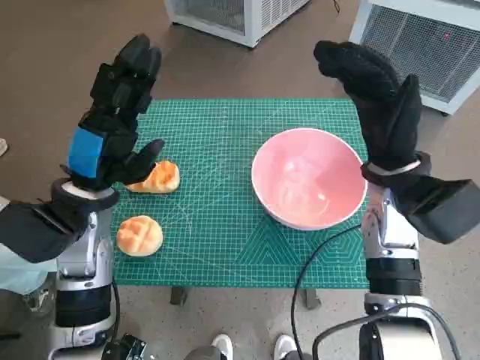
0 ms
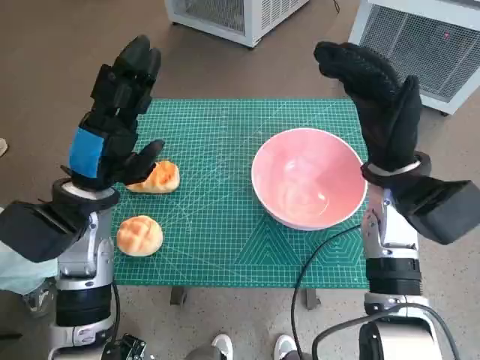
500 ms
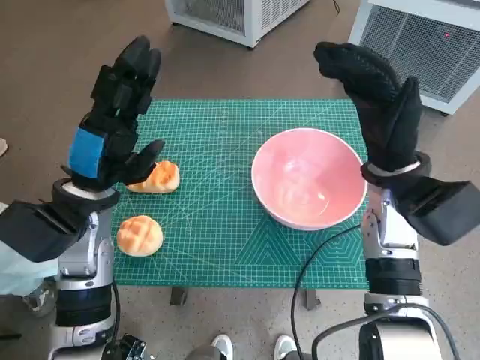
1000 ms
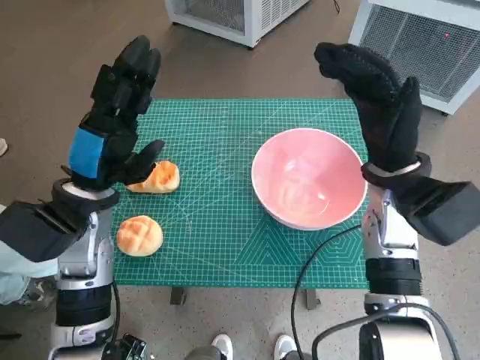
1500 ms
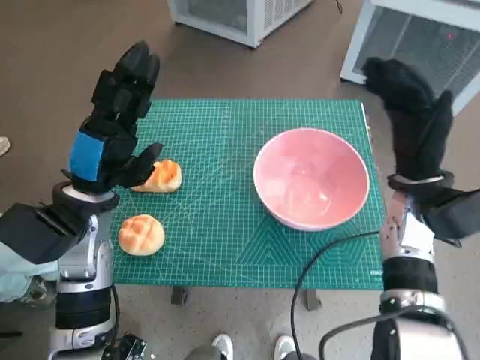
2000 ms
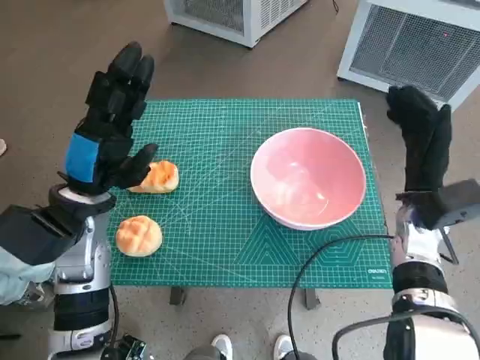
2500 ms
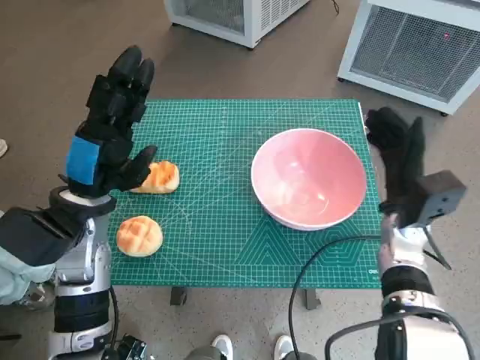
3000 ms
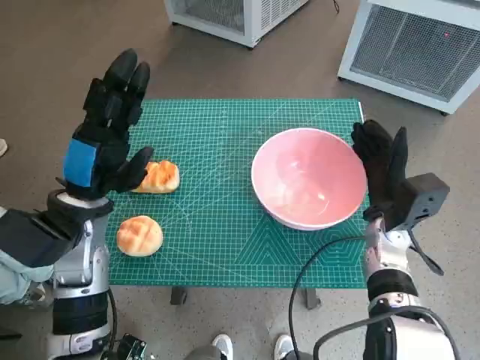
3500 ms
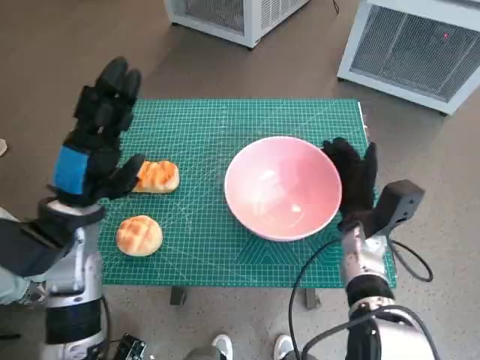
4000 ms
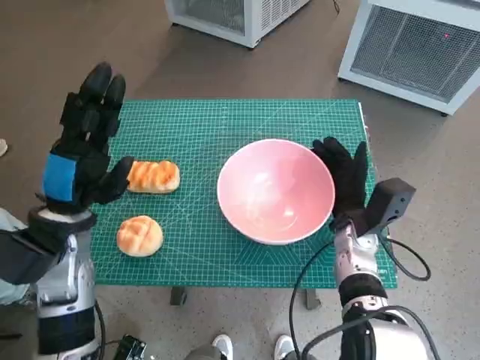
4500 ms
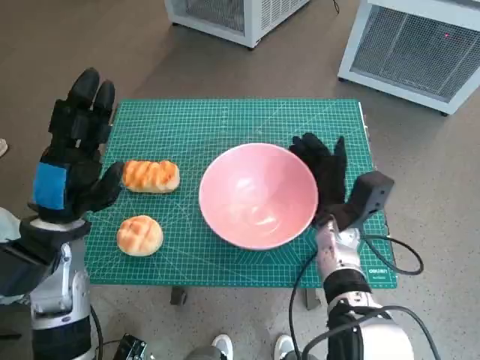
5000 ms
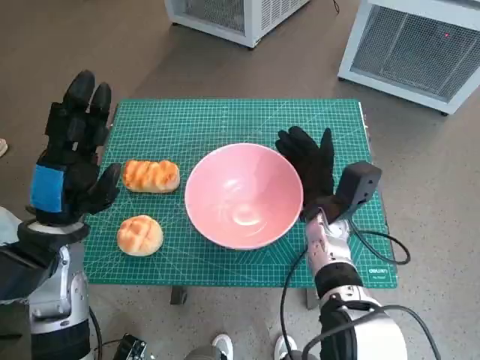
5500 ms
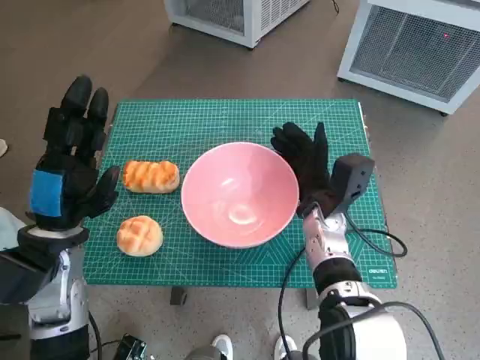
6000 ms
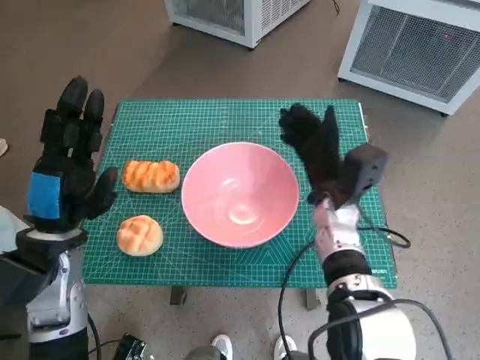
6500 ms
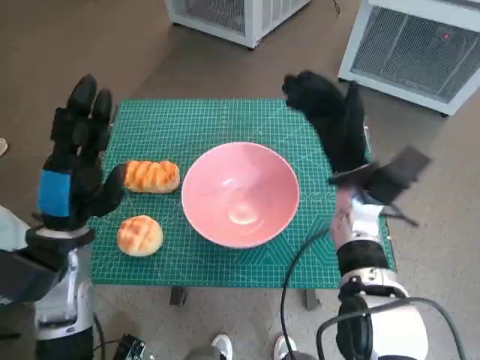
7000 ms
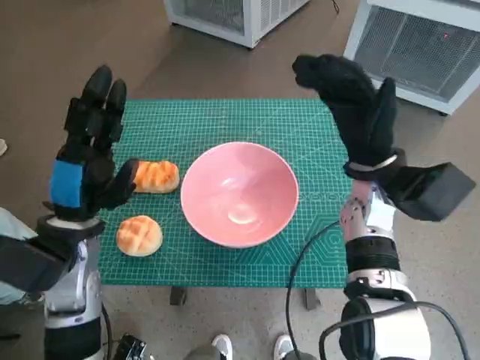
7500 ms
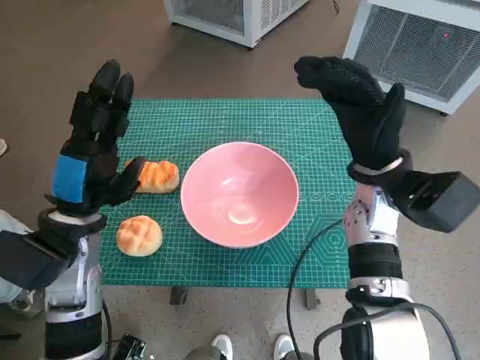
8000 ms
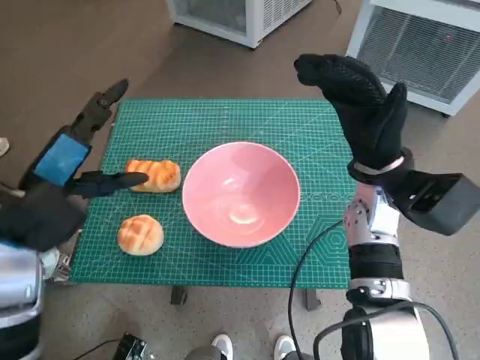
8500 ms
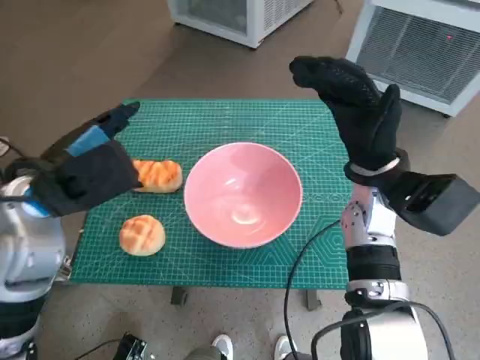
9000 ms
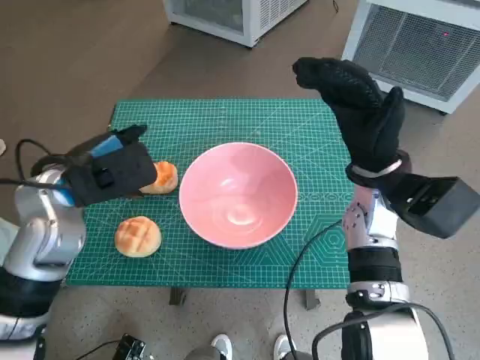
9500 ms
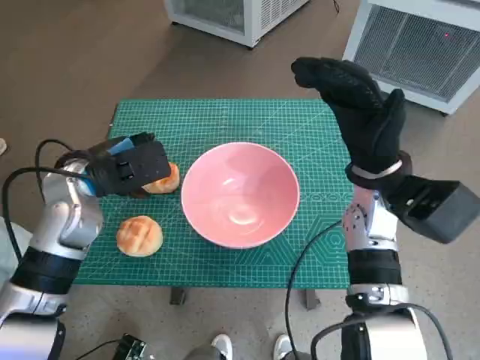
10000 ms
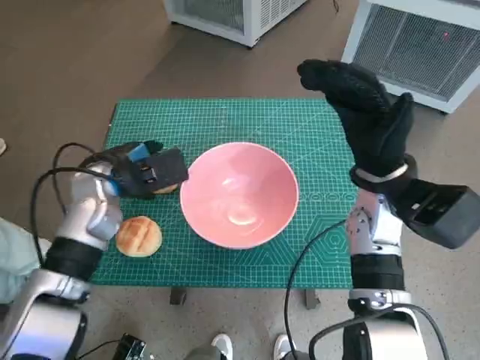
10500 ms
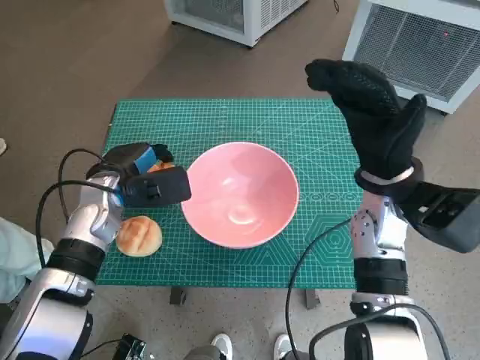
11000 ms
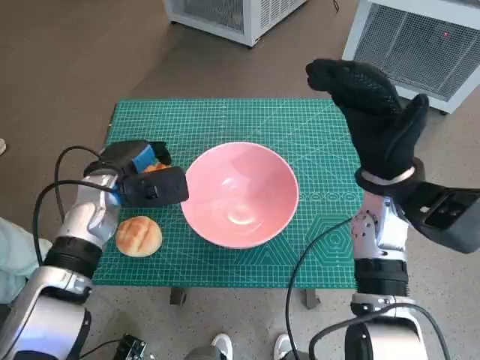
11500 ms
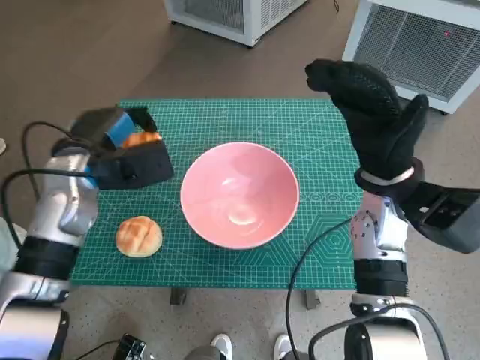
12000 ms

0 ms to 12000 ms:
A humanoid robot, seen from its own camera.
Task of the whole recording: Push the bowl into the center of the table and put the bread into the bowl.
Step, 0 ms to 6500 ms: Move the pink bowl to the center of table with right hand.
Step, 7000 ms to 11000 ms: Grasp the long bread with left hand.
2000 ms to 4000 ms: The right hand moves downward, about 10 cm.
4000 ms to 6000 ms: The right hand shifts approximately 5 cm to the left.
6000 ms to 8000 ms: The right hand goes some 10 cm upward and to the right.
8000 ms to 10000 ms: The left hand shifts approximately 5 cm forward.

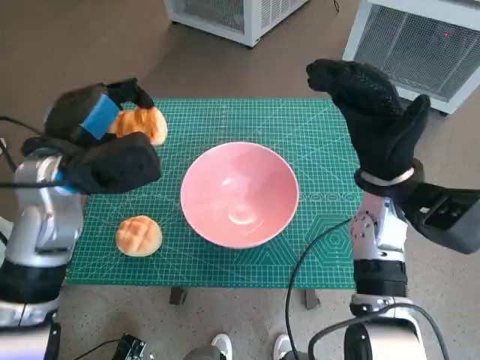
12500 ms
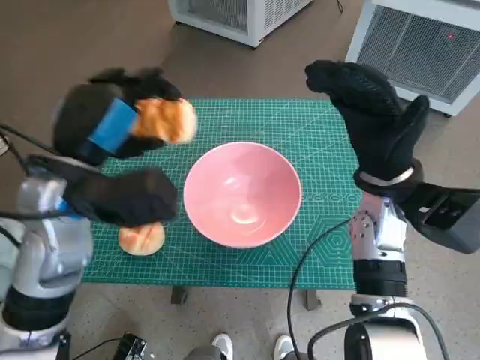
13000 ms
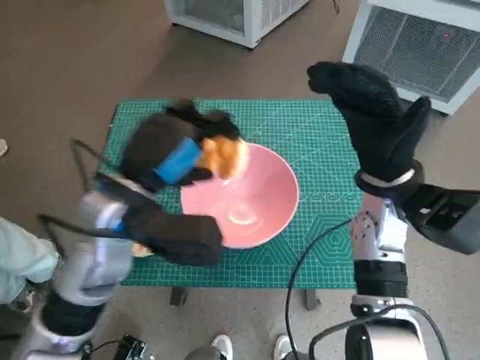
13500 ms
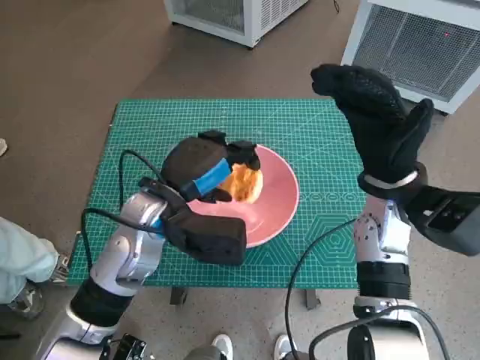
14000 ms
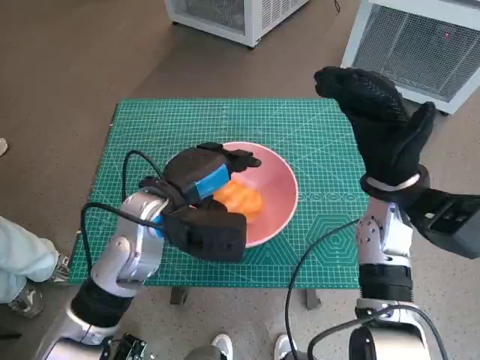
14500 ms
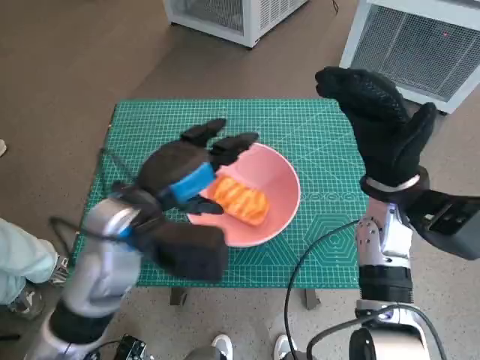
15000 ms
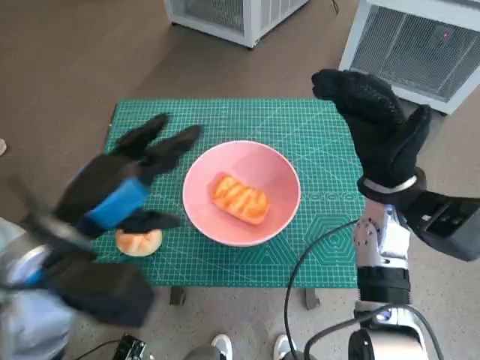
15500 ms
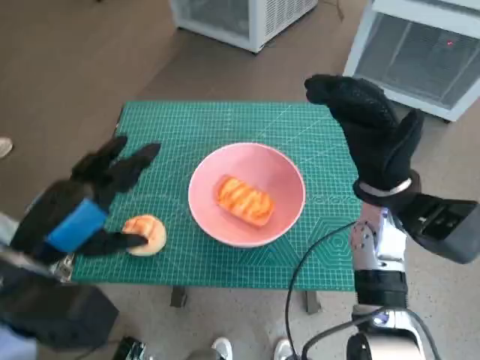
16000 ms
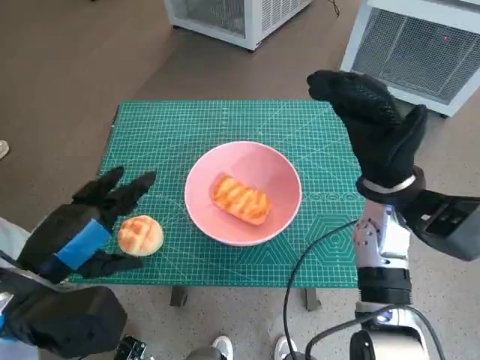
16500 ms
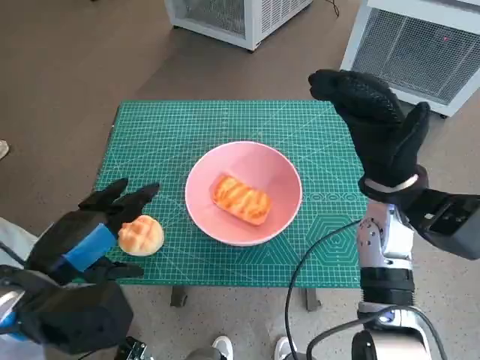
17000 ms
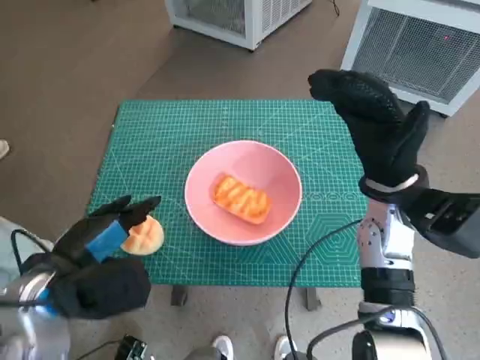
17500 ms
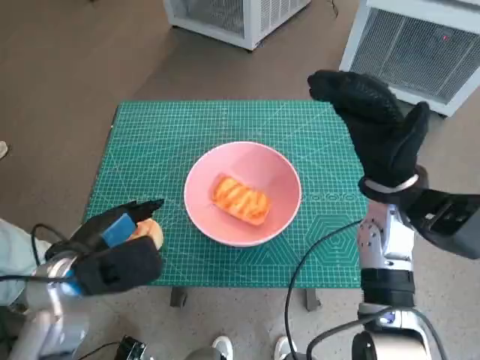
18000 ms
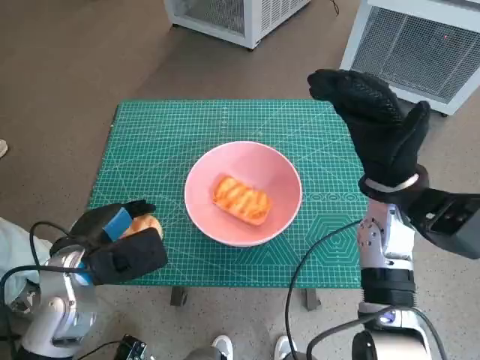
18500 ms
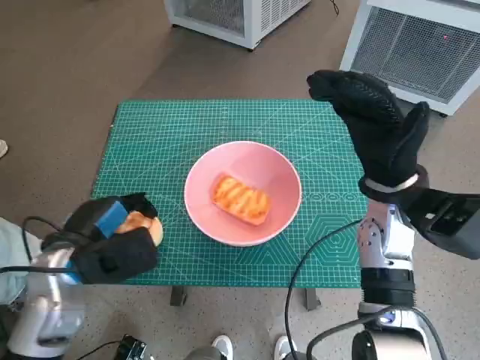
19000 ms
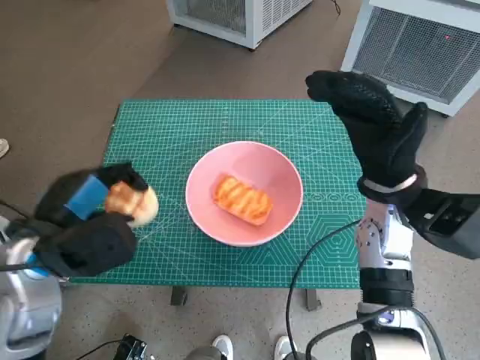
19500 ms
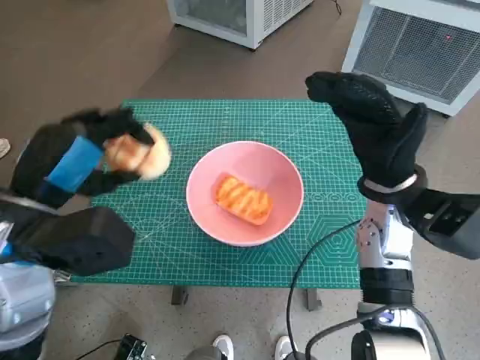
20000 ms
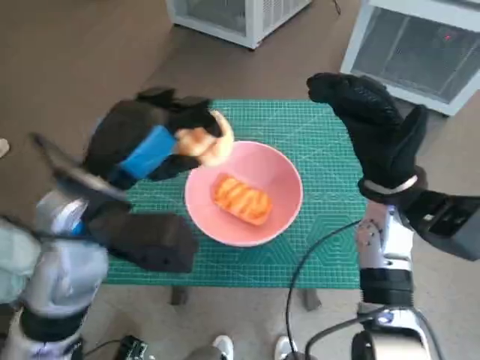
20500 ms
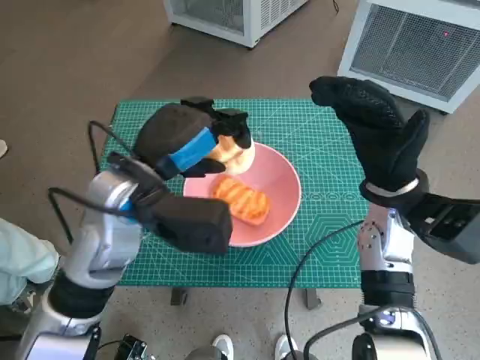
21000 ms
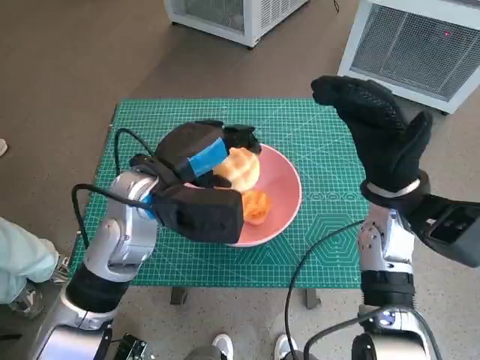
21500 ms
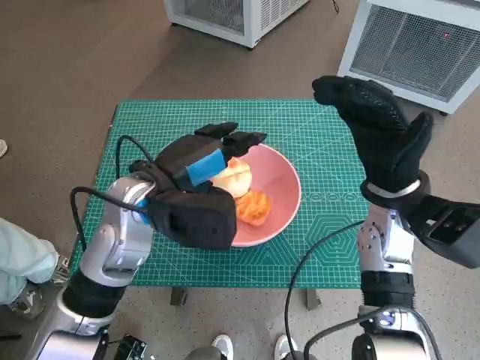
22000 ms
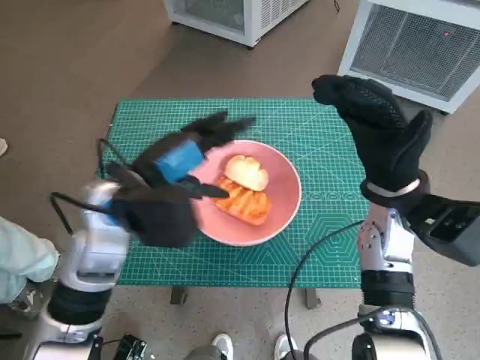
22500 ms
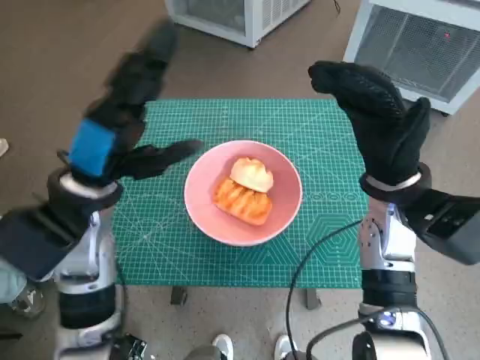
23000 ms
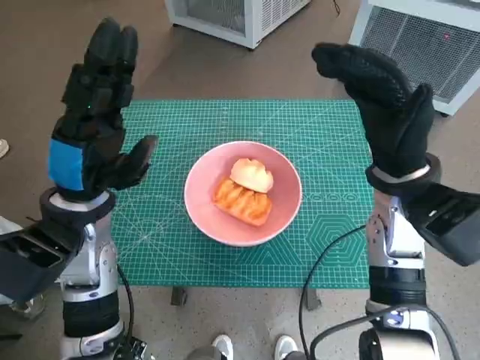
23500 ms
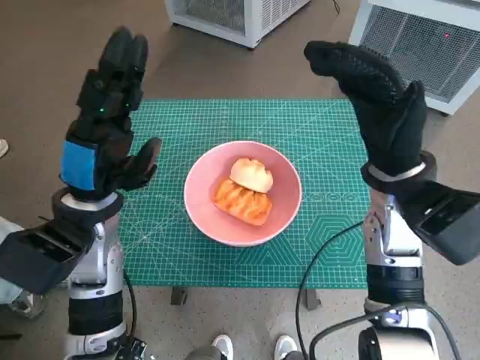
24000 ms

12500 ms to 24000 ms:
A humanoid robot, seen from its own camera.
Task of the whole recording: Push the bowl into the center of the table and put the bread into the bowl.
Step, 12500 ms to 14500 ms: Place the long bread in pink bowl with left hand.
Step, 15000 ms to 18500 ms: Grasp the round bread with left hand.
Step, 19000 ms to 22000 ms: Place the round bread in pink bowl with left hand.
12500 ms to 14500 ms: The left hand is displaced to the right and downward by roughly 10 cm.
14500 ms to 16500 ms: The left hand moves backward and to the left, roughly 15 cm.
16500 ms to 18500 ms: The left hand travels downward and forward by approximately 10 cm.
18500 ms to 20000 ms: The left hand shifts approximately 10 cm upward.
20000 ms to 22000 ms: The left hand goes about 10 cm to the right and forward.
22000 ms to 24000 ms: The left hand shifts approximately 5 cm to the left.

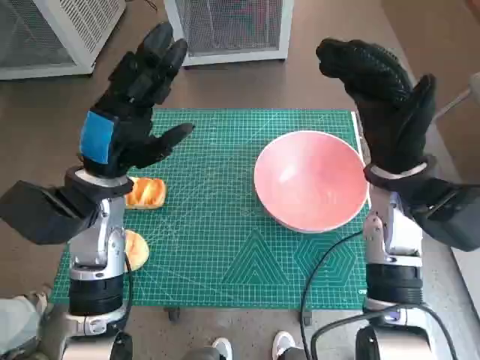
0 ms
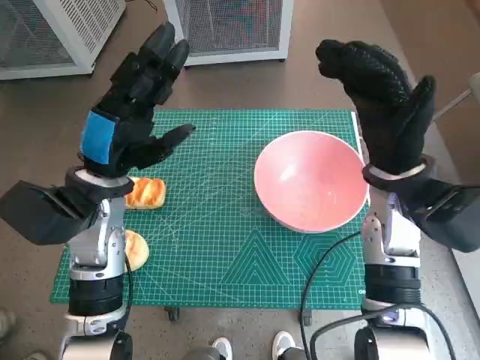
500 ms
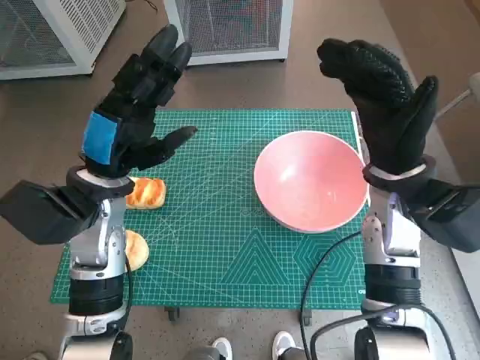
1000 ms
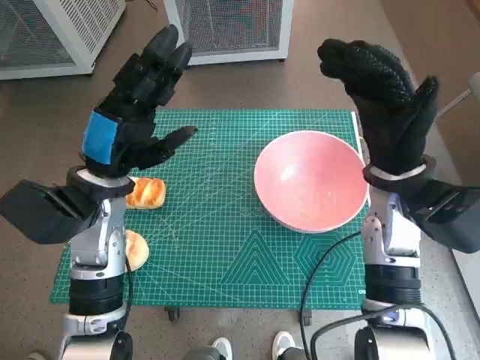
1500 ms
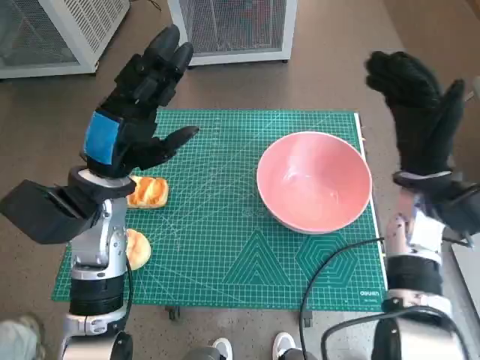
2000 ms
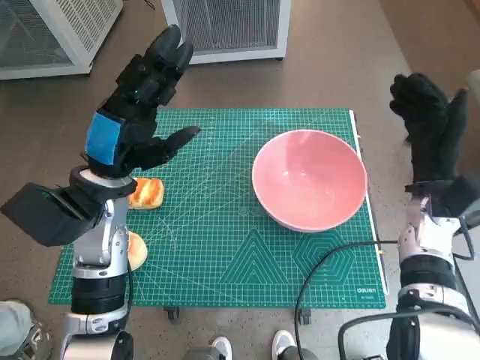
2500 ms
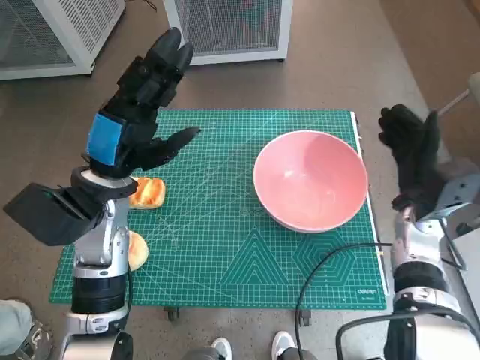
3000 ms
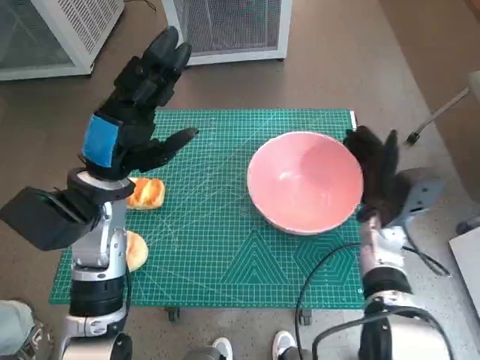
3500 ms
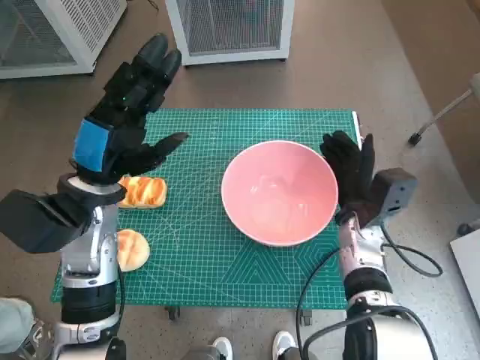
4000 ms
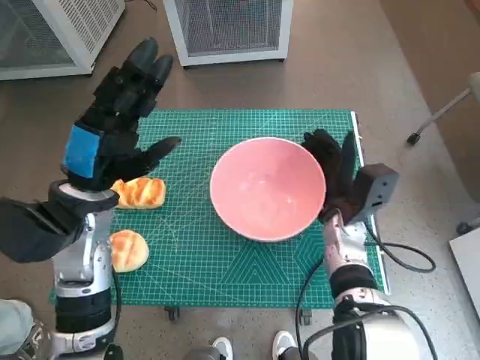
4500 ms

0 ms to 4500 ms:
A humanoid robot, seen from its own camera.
Task of the whole recording: Push the bowl into the center of the table and put the bread into the bowl.
2000 ms to 4500 ms: The right hand is displaced downward and to the left by approximately 15 cm.
